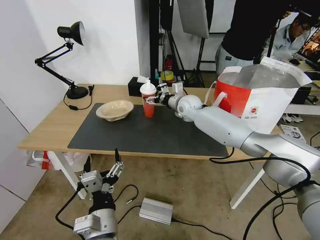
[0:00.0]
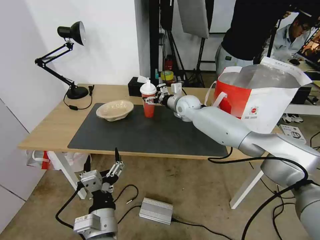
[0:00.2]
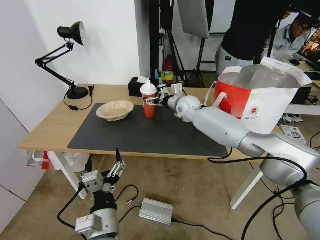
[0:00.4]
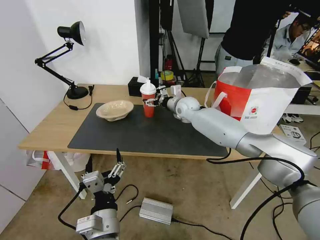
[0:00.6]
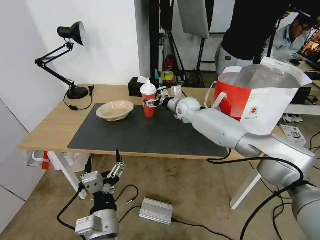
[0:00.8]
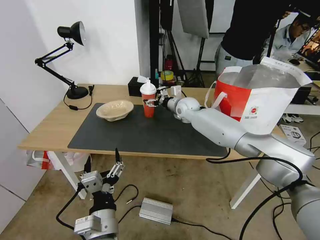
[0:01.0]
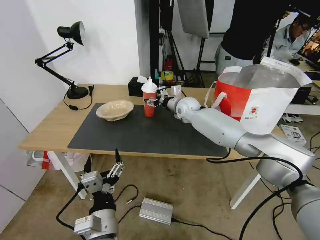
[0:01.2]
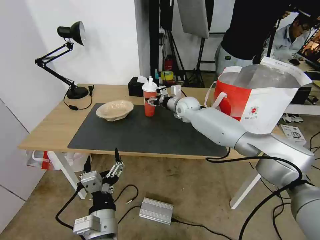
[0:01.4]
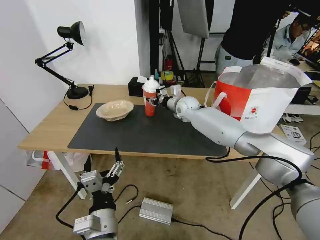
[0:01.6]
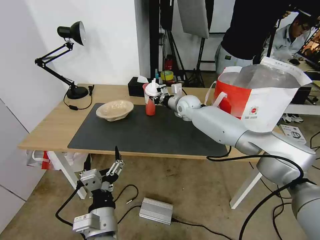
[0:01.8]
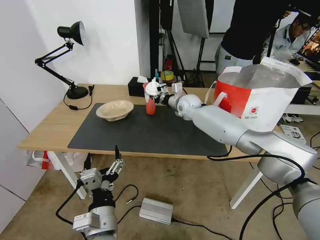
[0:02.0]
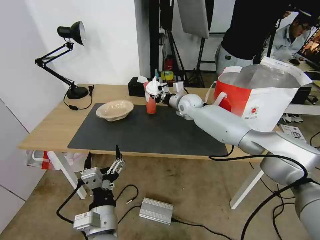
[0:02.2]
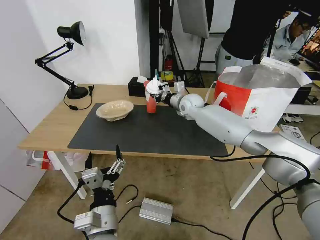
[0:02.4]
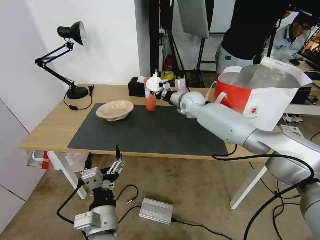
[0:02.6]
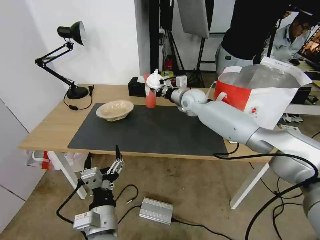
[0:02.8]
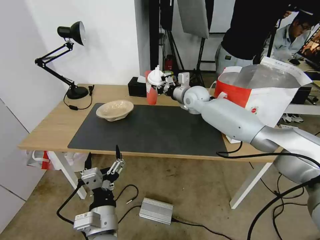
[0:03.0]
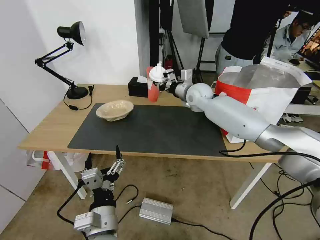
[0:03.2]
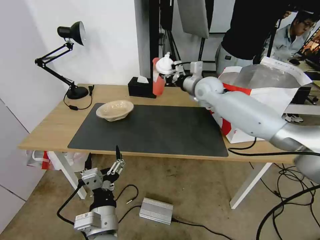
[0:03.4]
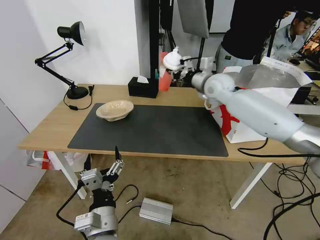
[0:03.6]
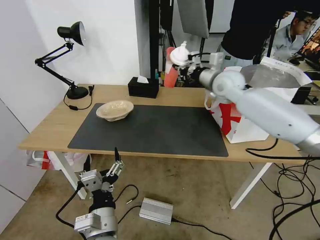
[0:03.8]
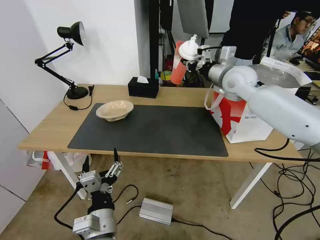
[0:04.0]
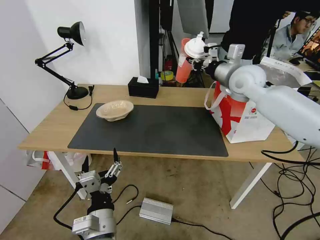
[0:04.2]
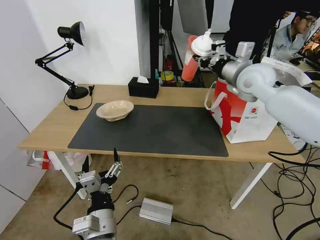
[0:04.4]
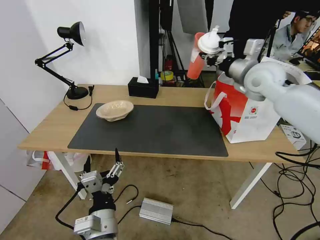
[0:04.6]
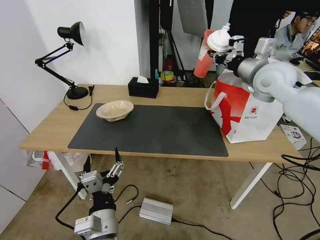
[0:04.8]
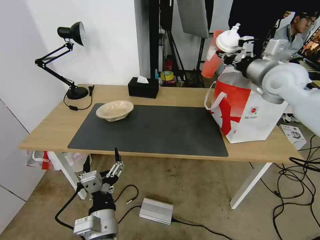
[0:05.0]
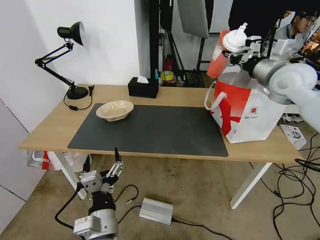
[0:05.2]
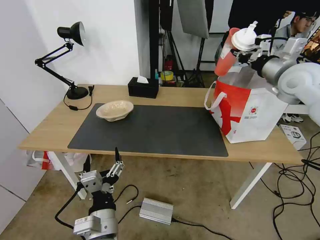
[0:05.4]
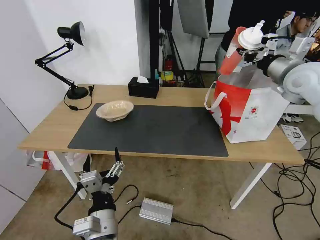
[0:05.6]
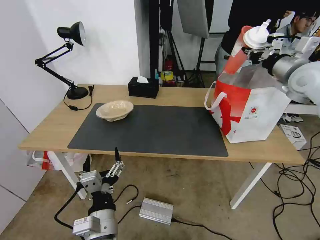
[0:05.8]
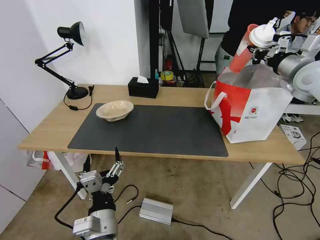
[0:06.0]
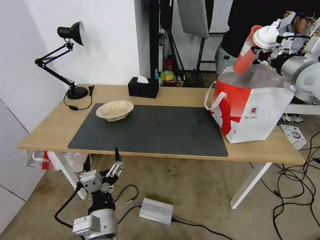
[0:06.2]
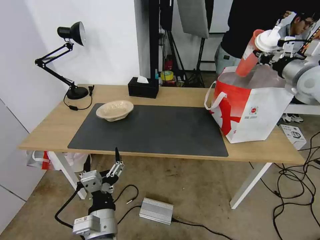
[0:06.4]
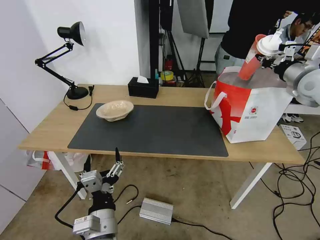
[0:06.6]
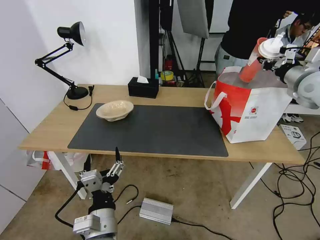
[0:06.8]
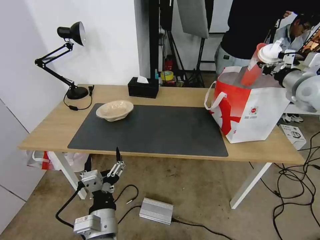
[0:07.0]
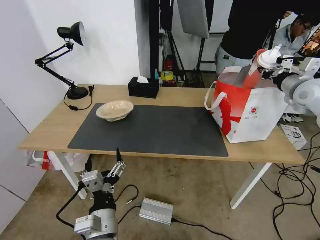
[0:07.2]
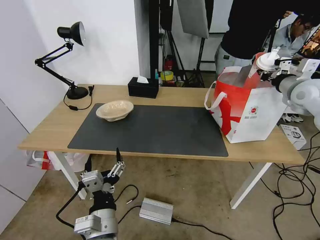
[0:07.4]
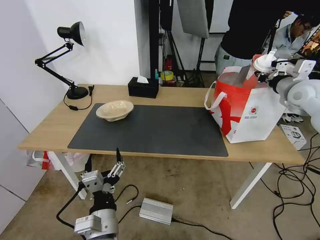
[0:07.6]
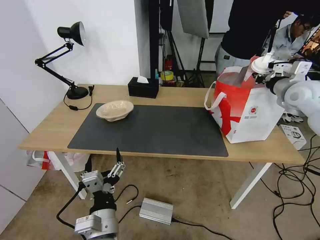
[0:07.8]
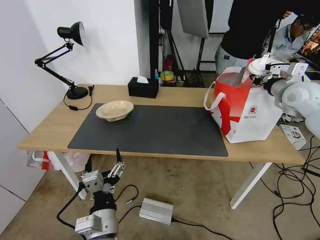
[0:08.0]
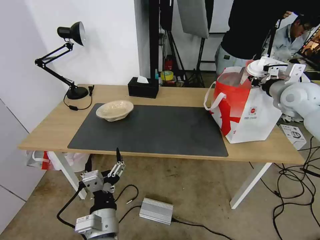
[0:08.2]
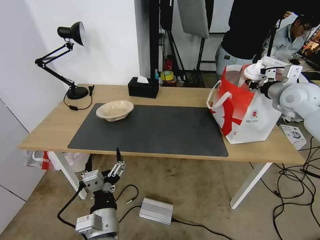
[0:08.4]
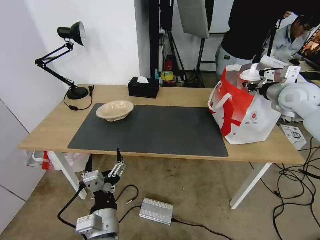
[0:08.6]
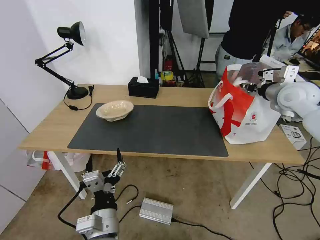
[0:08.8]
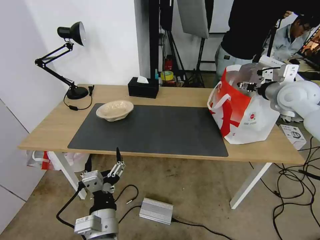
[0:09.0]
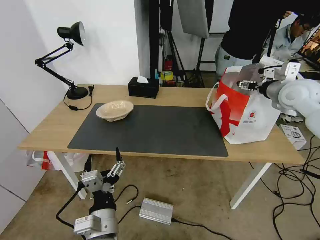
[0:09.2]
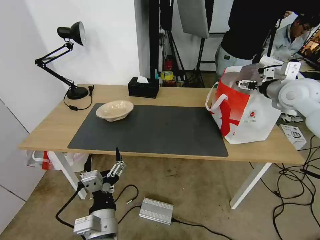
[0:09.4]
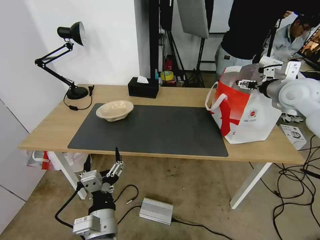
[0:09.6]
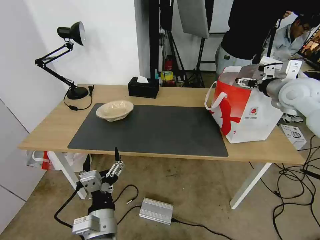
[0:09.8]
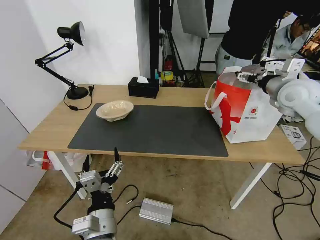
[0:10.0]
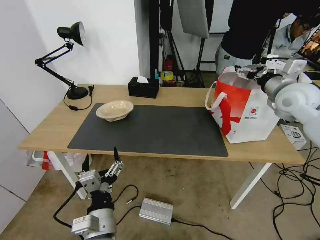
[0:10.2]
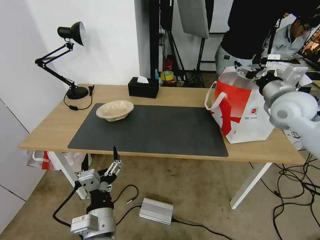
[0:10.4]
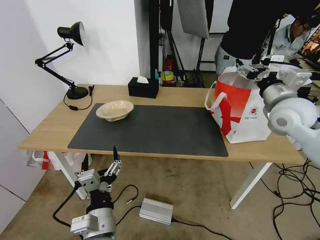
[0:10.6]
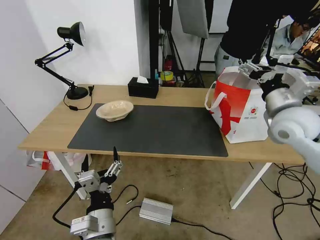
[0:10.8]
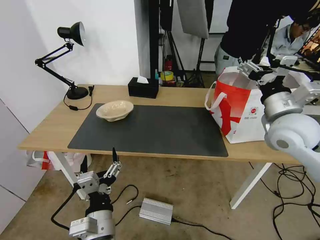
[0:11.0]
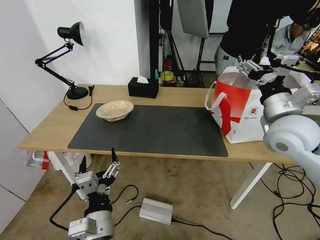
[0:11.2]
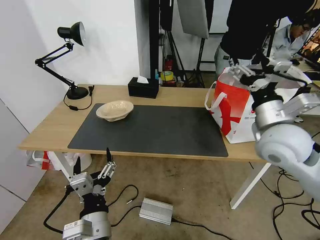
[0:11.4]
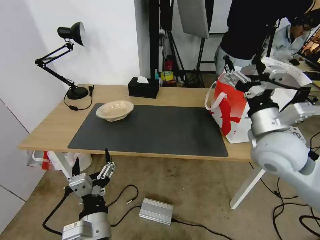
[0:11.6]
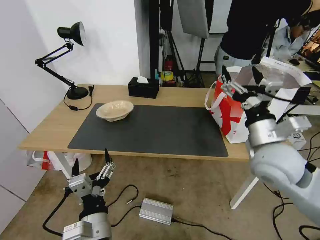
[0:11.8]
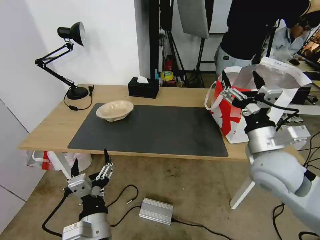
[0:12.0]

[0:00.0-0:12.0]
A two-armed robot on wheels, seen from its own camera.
Task of the whole recording: Pick up the trash from the table and place it into the takeout bag.
0:00.0 to 0:01.6: The right gripper closes its fingers.
0:01.6 to 0:03.0: The right gripper heads upward, covering roughly 5 cm.
0:03.0 to 0:04.4: The right gripper heads to the right, upward and backward, covering some 20 cm.
0:04.4 to 0:06.0: The right gripper shifts some 15 cm to the right.
0:06.0 to 0:07.6: The right gripper heads downward, covering roughly 5 cm.
0:07.6 to 0:09.0: The right gripper opens.
0:09.0 to 0:10.4: The right gripper is displaced backward and to the left by roughly 10 cm, and opens.
0:10.4 to 0:12.0: The right gripper shifts roughly 20 cm backward, to the left and downward.

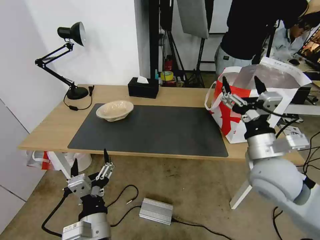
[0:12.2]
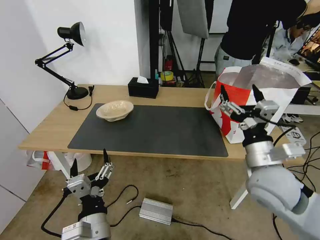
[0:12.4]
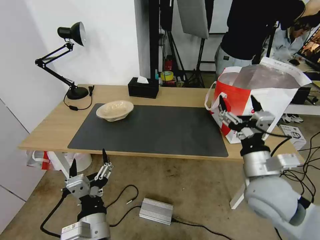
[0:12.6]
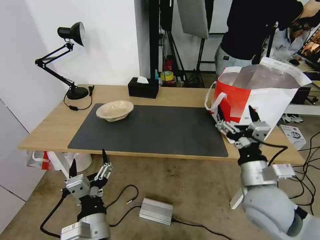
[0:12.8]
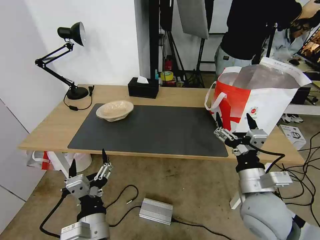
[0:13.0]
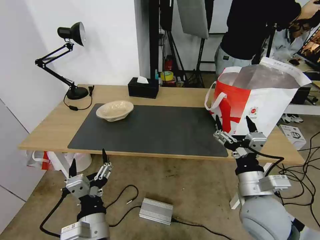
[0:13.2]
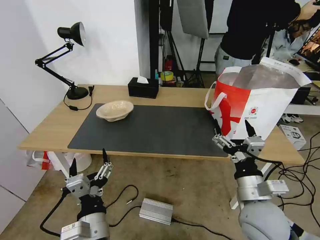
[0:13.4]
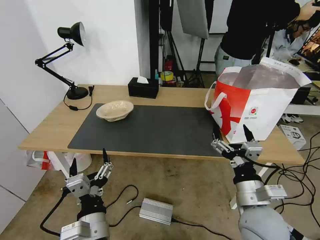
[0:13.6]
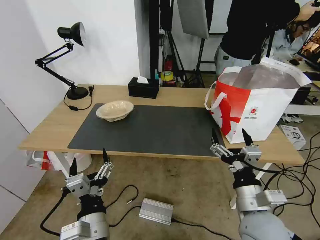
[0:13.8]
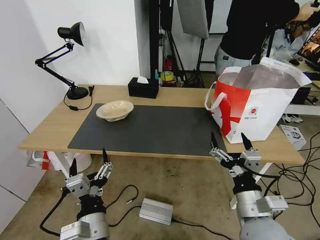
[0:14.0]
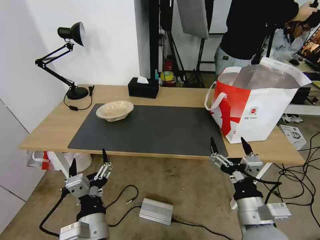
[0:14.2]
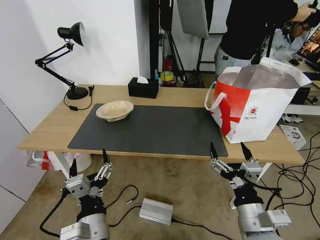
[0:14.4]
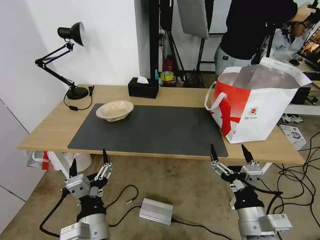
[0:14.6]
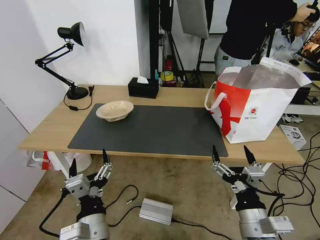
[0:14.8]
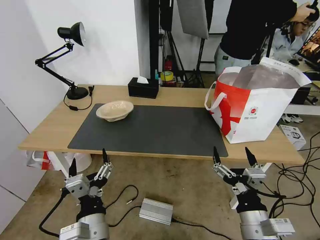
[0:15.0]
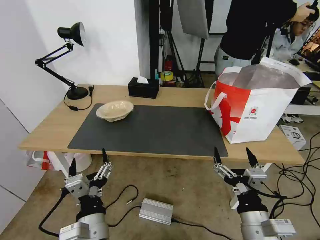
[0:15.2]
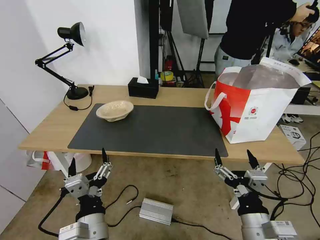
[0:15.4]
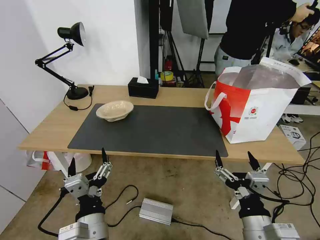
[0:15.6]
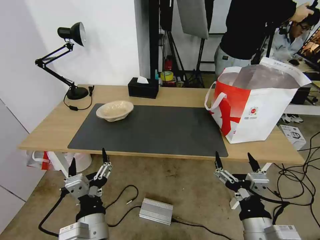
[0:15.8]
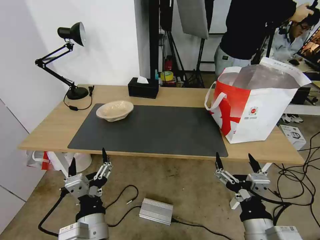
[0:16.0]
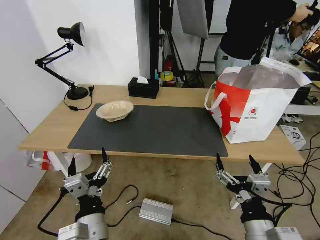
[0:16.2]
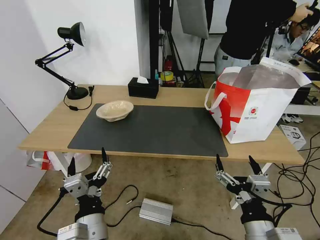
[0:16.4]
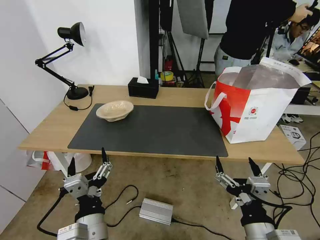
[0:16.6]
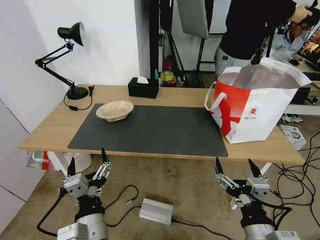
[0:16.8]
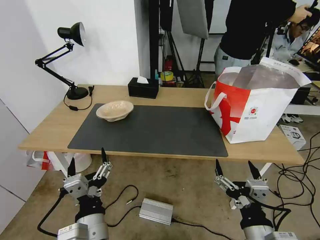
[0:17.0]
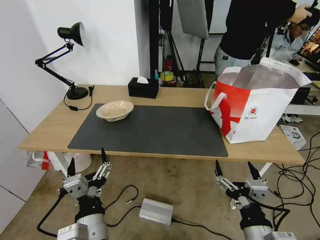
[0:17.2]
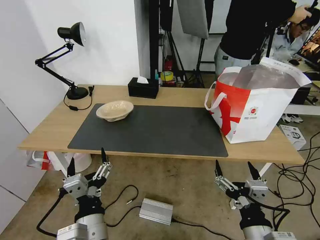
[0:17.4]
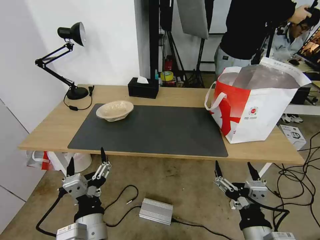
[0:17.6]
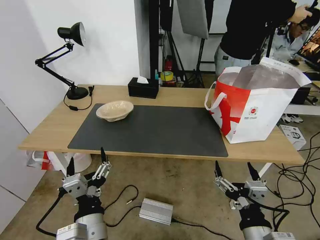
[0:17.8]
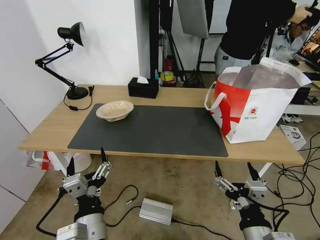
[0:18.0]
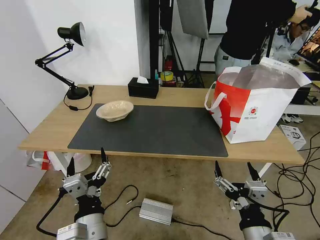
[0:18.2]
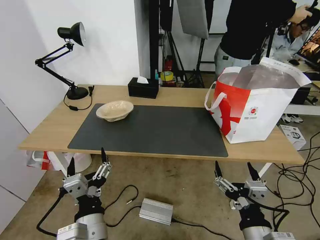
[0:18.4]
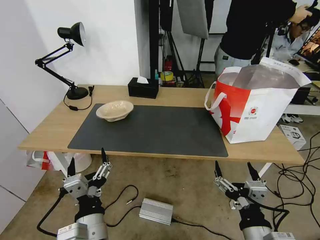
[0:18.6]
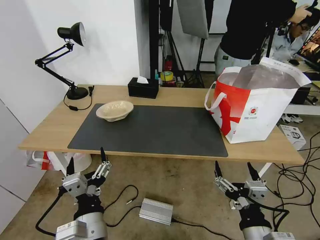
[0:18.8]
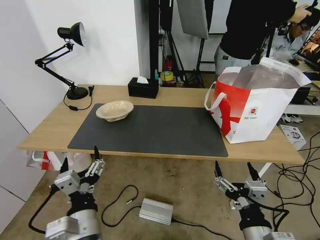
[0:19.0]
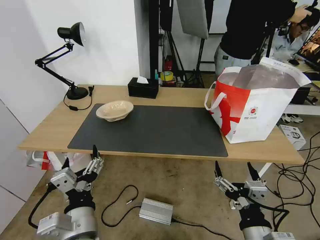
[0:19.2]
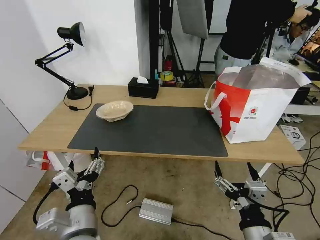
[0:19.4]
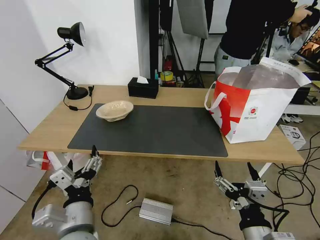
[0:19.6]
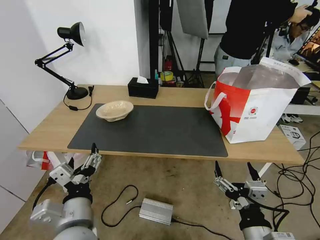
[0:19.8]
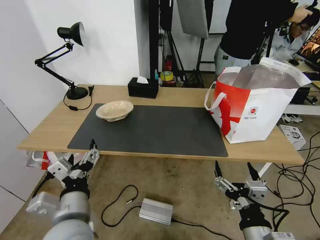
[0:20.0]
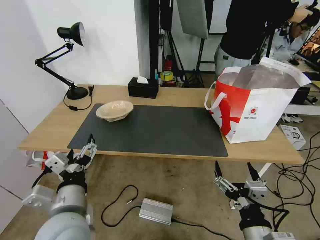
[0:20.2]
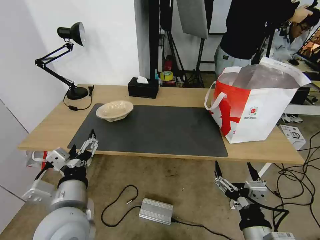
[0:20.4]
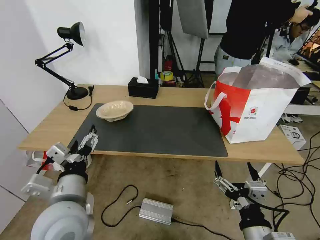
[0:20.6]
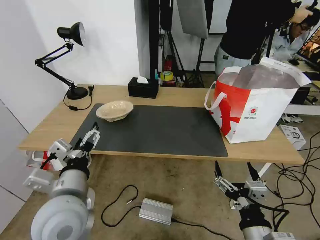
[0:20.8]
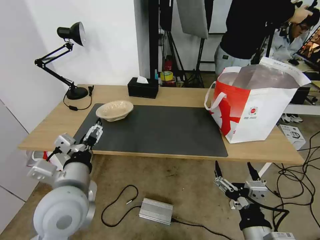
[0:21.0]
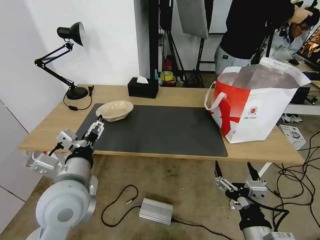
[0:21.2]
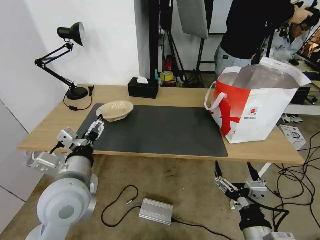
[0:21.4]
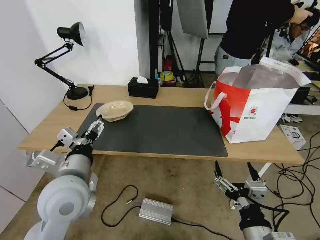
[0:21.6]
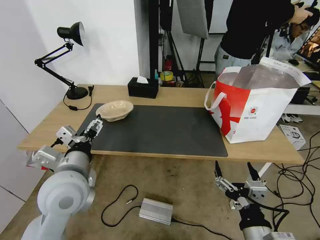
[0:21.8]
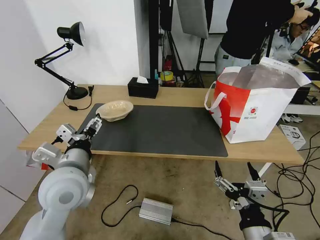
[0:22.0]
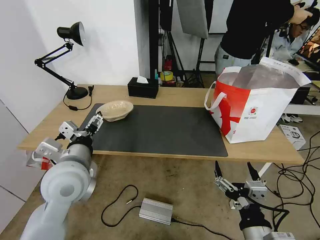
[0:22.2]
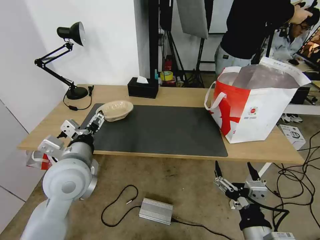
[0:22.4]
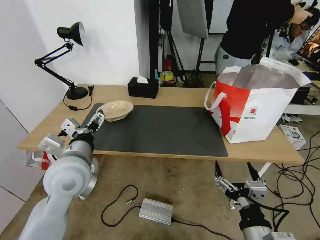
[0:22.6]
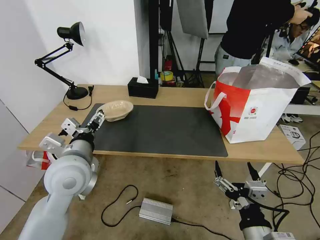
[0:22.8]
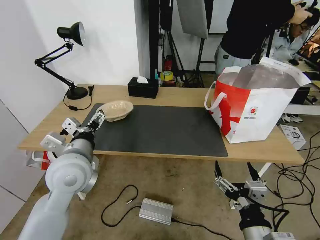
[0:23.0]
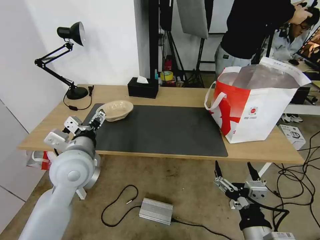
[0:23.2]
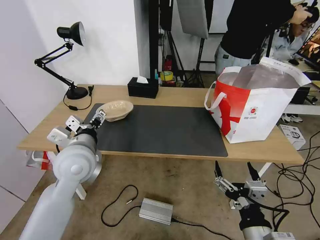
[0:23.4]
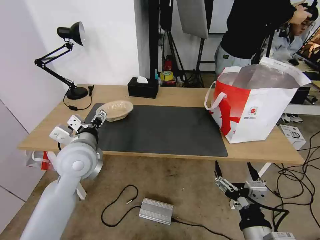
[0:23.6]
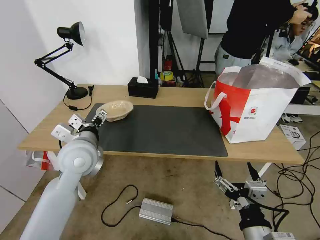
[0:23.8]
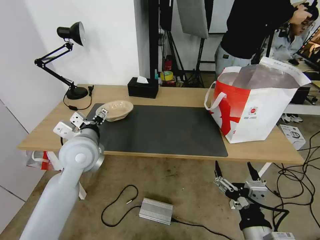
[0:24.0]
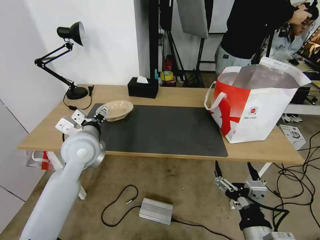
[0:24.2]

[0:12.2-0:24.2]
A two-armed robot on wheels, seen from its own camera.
Task of the whole recording: Pick up the trash from the table and place it into the takeout bag.
0:12.2 to 0:13.8: The right gripper travels backward and downward by about 15 cm.
0:13.8 to 0:15.2: The right gripper is displaced backward by some 5 cm.
0:15.2 to 0:16.6: The grippers move only a little.
0:16.6 to 0:18.2: Both grippers stay about where they are.
0:18.2 to 0:19.8: The left gripper ends up roughly 5 cm from where it was.
0:19.8 to 0:21.2: The left gripper goes approximately 10 cm forward and upward.
0:21.2 to 0:22.6: The left gripper heads forward, covering approximately 5 cm.
0:22.6 to 0:24.2: The left gripper goes about 10 cm forward.
